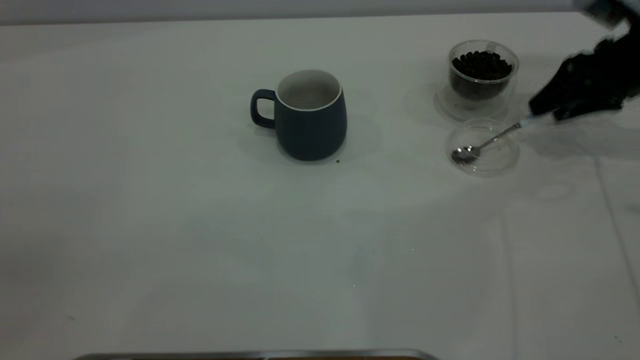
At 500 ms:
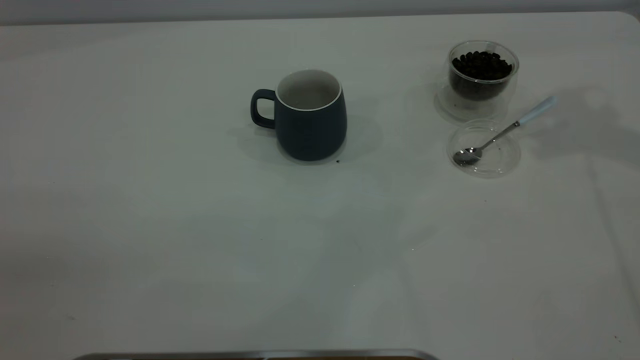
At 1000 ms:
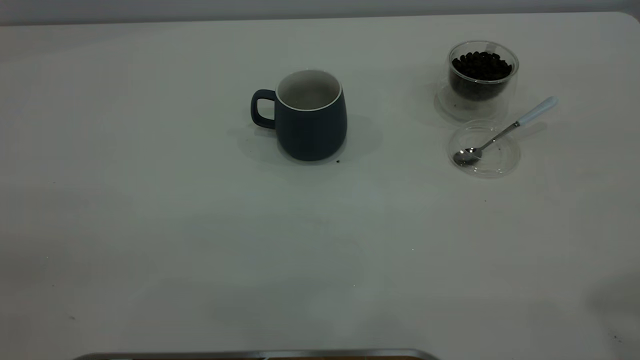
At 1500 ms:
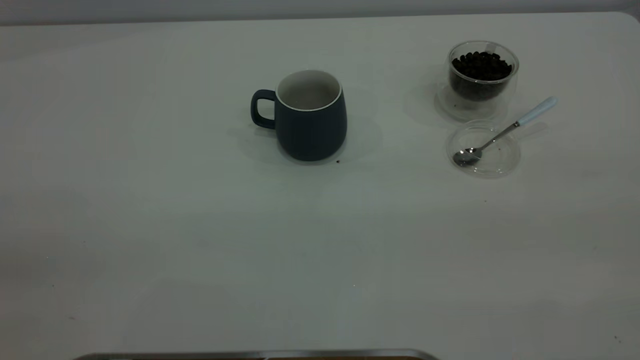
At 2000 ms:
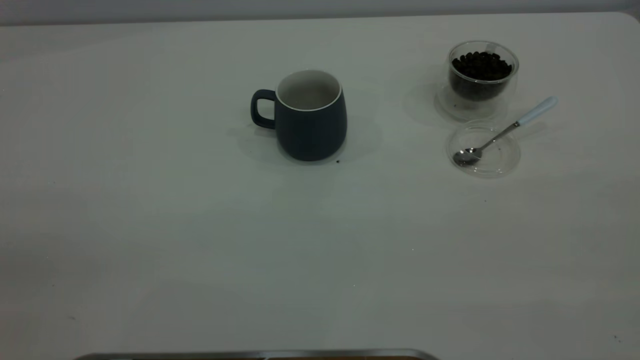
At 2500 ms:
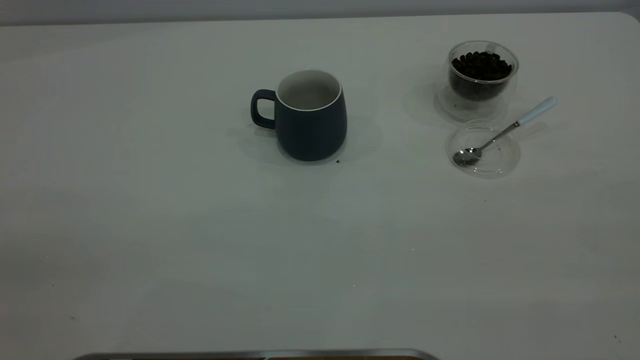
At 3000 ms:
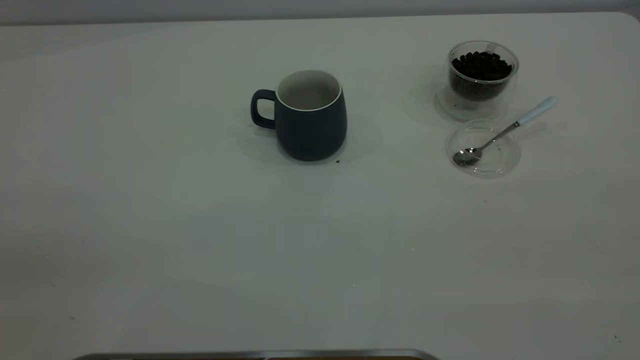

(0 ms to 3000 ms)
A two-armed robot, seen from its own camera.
Task of the whole recording: the left gripper place the grey cup in the center of the table, the right gripper take the blue spoon from the cup lid and scoop out the coffee beans from the coffee cup and put them into the grey cup, the right gripper put the spoon back into the cup lid.
0 ms - 1500 ms: The right gripper travels backward and upward by approximately 50 cm.
